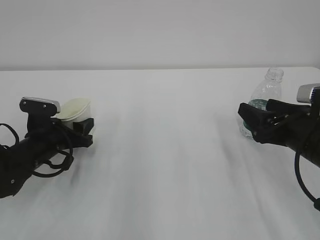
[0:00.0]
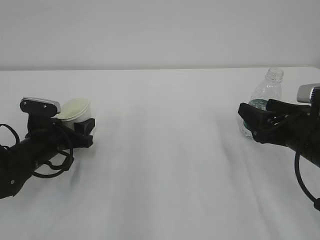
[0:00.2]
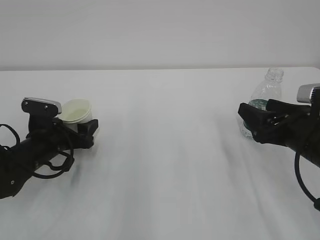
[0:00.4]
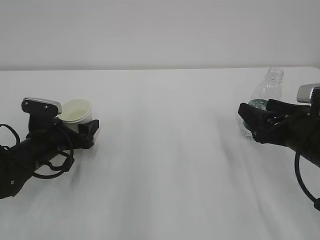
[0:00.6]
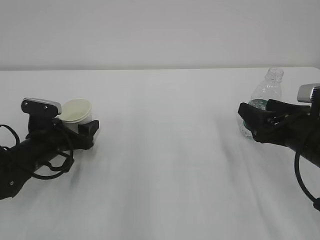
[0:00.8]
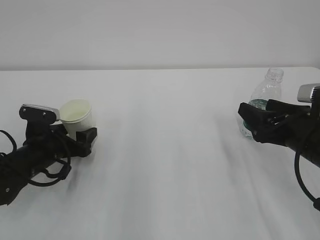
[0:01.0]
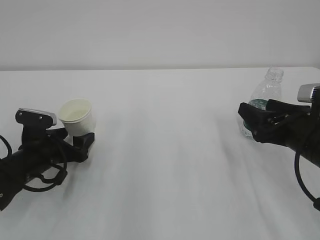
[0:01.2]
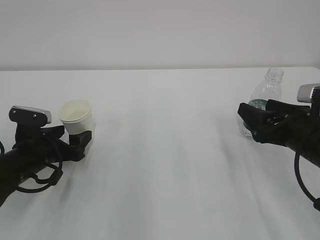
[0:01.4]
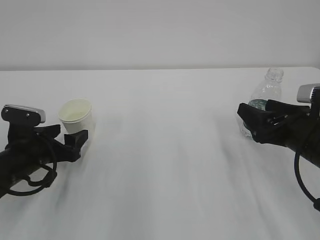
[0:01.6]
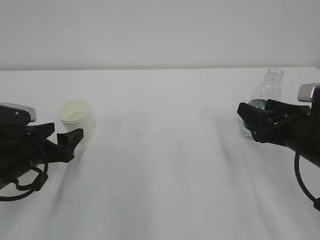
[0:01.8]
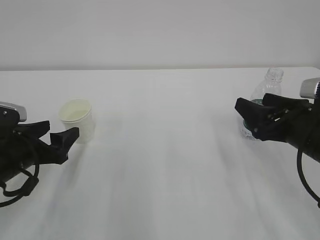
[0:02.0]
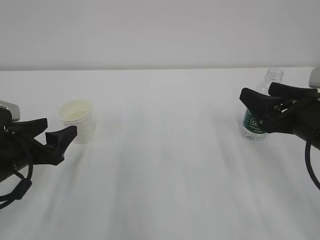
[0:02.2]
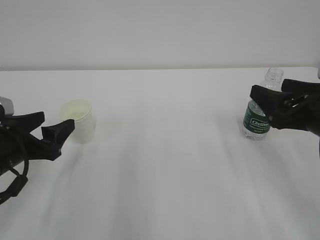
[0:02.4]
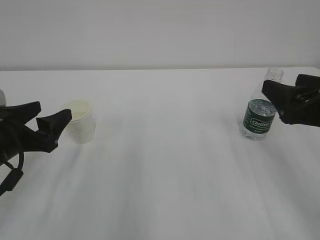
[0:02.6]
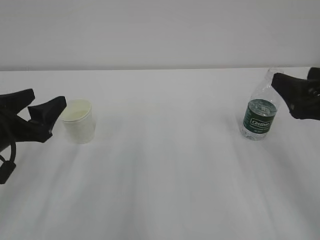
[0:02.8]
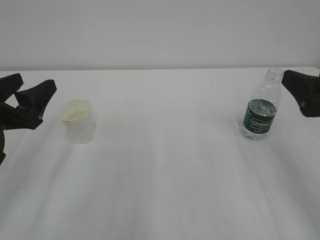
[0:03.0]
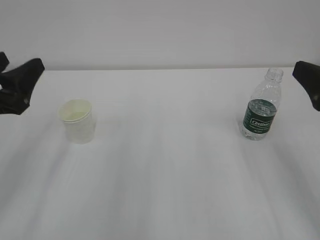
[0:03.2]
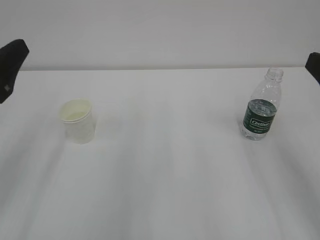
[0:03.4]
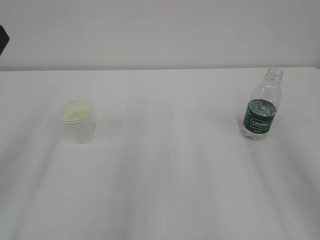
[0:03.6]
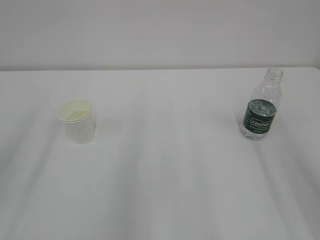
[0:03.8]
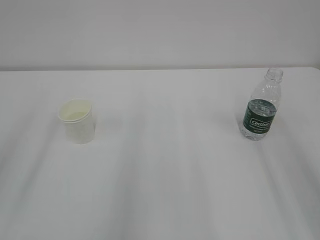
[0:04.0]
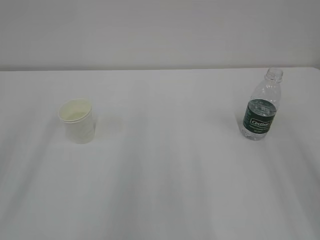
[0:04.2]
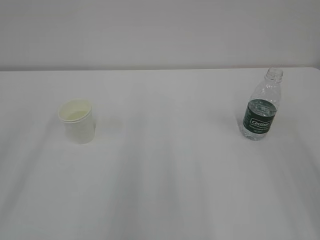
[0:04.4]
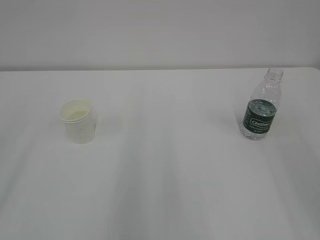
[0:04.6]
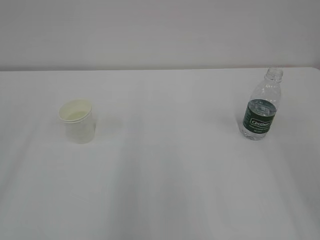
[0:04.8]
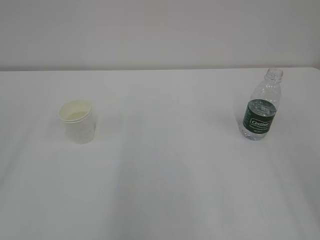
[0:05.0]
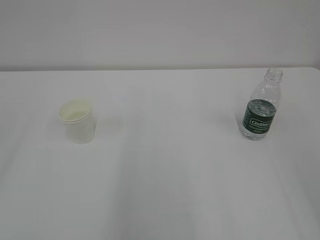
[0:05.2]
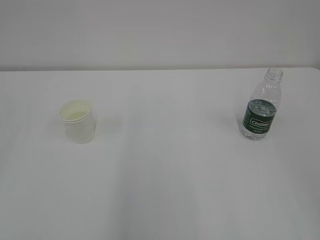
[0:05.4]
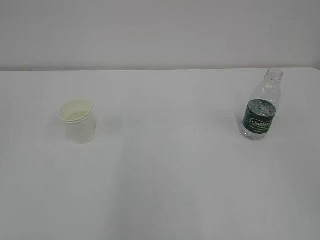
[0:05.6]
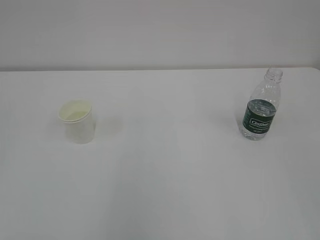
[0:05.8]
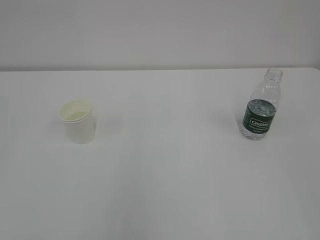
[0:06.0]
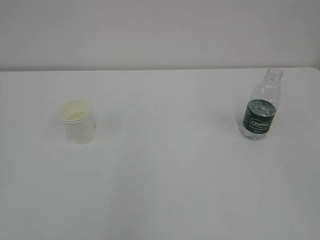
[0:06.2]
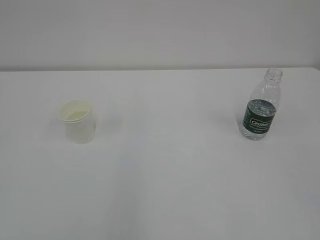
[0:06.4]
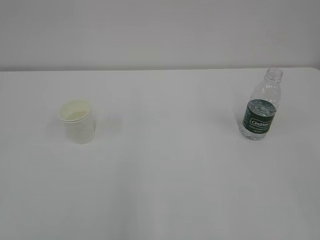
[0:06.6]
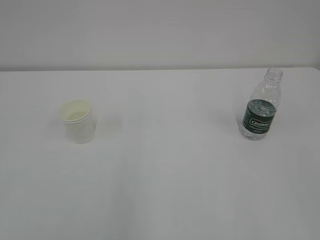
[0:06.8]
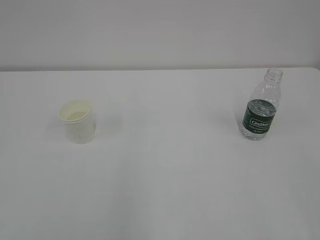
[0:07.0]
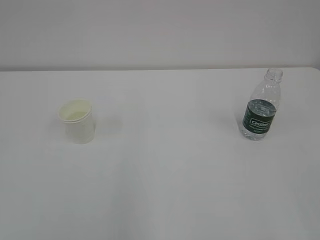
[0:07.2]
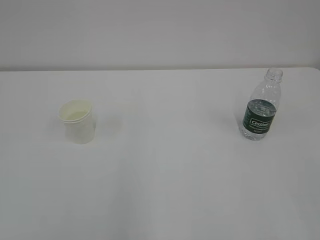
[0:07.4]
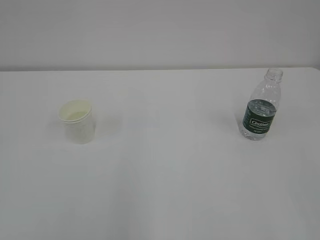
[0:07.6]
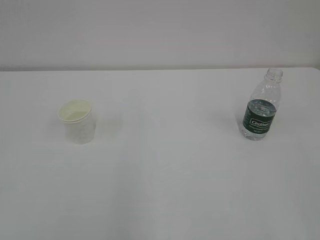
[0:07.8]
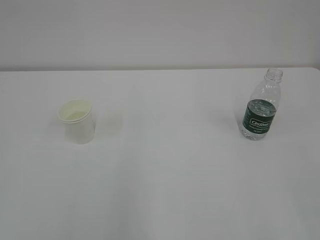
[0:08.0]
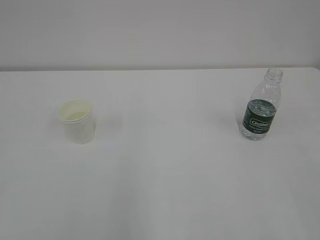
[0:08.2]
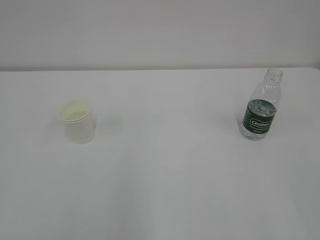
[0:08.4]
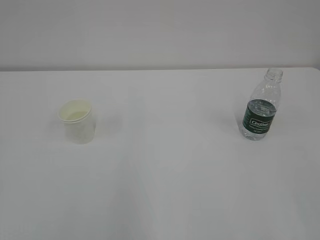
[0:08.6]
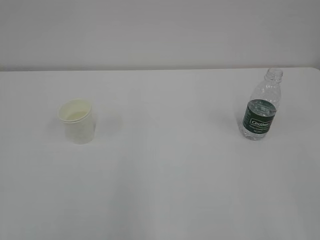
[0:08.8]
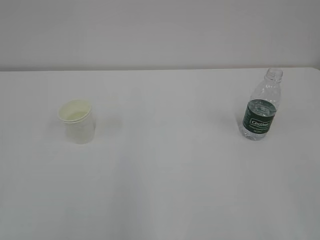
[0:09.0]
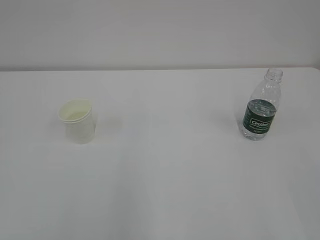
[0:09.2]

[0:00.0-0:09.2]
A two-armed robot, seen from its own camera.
0:00.0 to 0:01.6: The left gripper opens its fingers.
0:01.6 to 0:03.0: Both grippers travel together upward and backward, approximately 10 cm.
0:03.0 to 0:04.6: The left gripper is displaced upward and backward by some 20 cm. Meanwhile the right gripper shifts about 15 cm backward and upward.
0:07.6 to 0:09.2: Both grippers stay put.

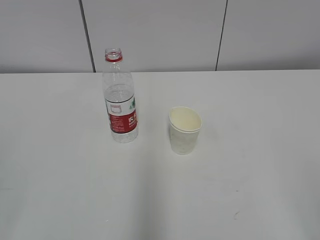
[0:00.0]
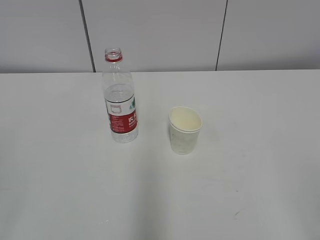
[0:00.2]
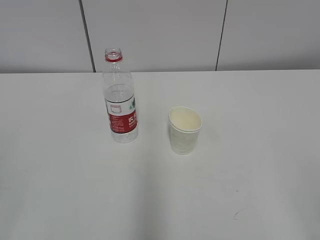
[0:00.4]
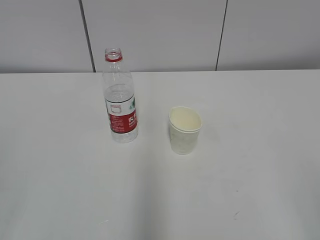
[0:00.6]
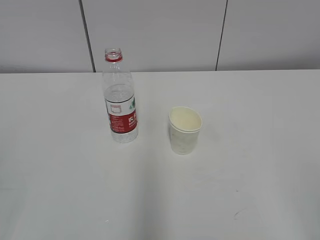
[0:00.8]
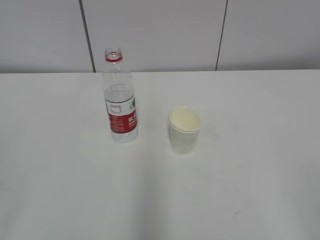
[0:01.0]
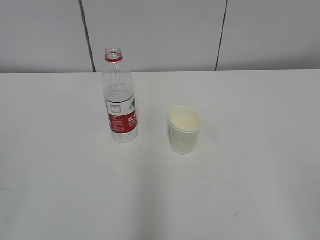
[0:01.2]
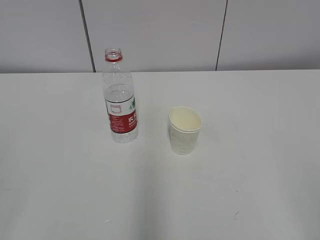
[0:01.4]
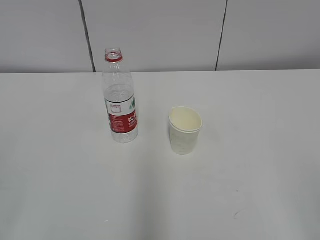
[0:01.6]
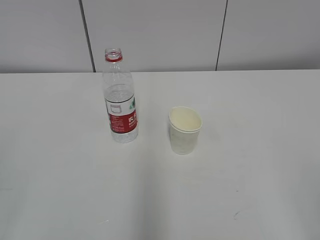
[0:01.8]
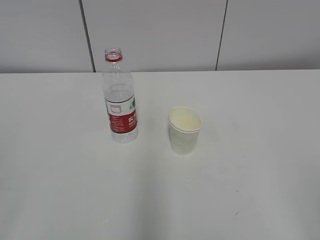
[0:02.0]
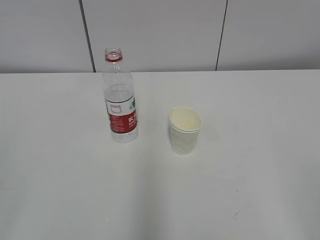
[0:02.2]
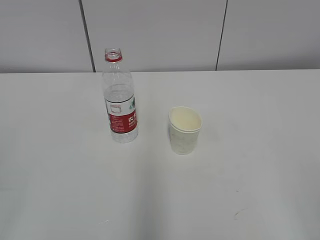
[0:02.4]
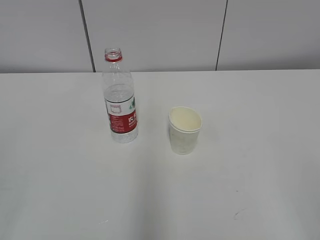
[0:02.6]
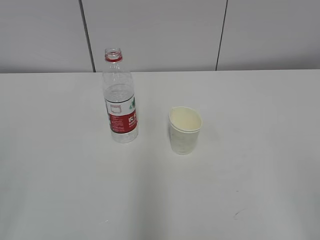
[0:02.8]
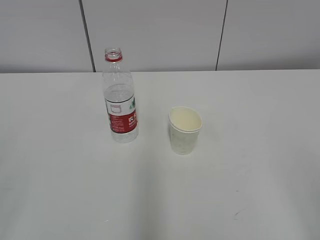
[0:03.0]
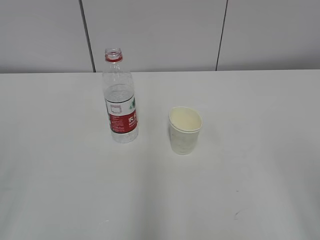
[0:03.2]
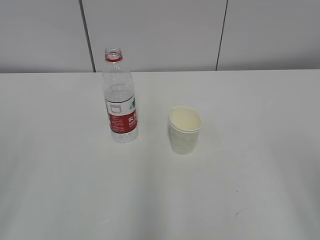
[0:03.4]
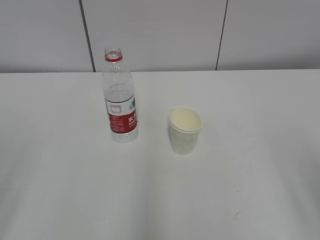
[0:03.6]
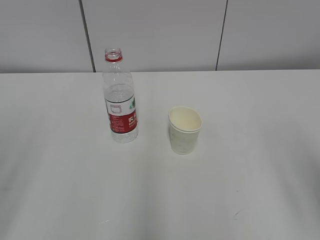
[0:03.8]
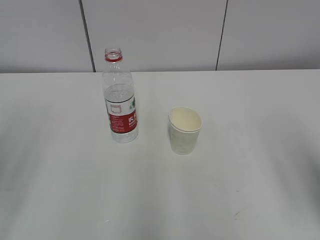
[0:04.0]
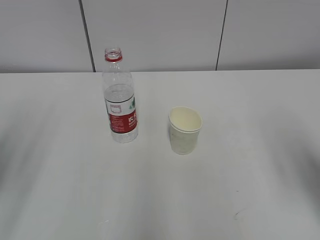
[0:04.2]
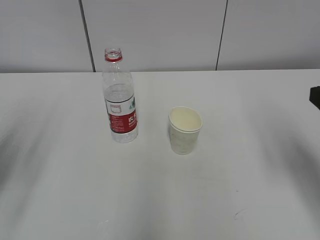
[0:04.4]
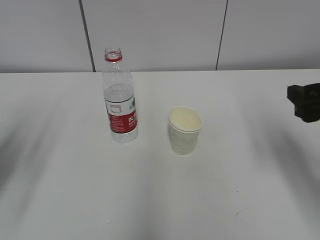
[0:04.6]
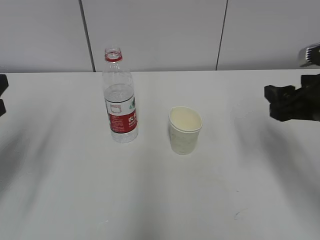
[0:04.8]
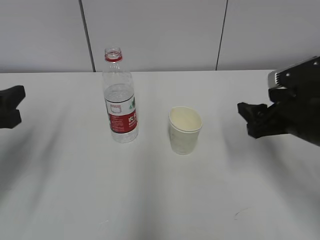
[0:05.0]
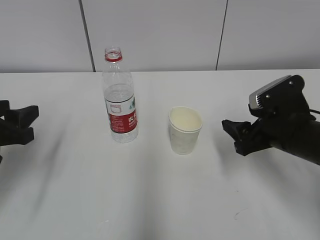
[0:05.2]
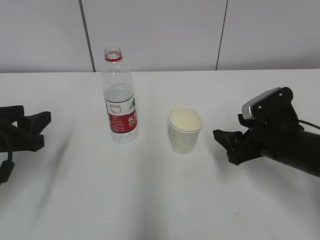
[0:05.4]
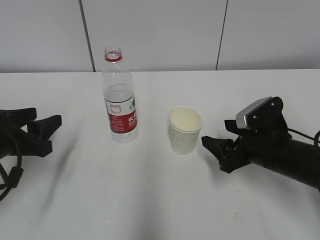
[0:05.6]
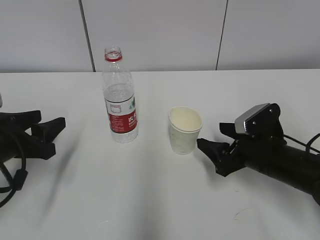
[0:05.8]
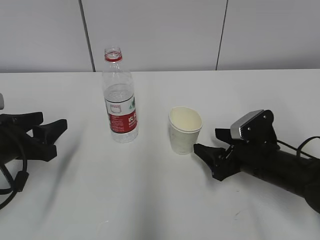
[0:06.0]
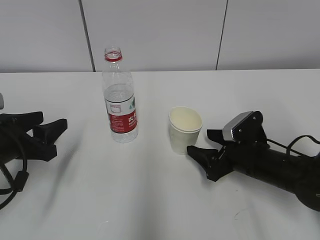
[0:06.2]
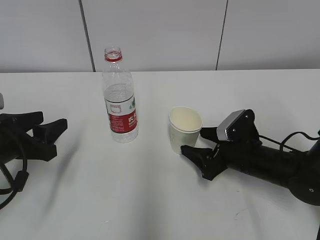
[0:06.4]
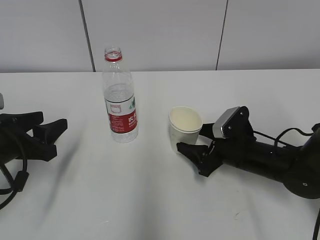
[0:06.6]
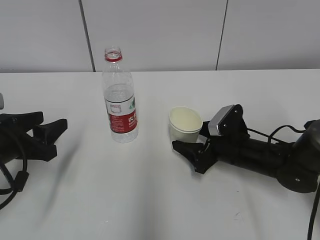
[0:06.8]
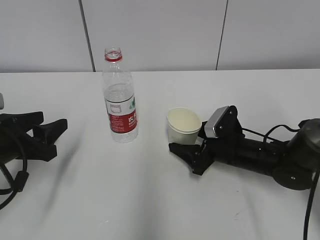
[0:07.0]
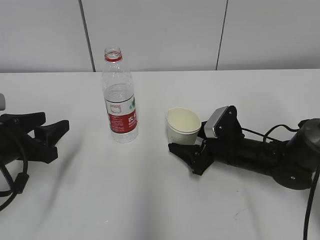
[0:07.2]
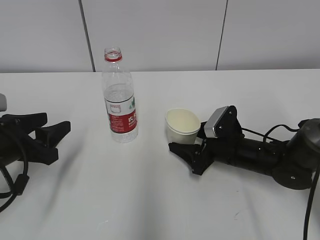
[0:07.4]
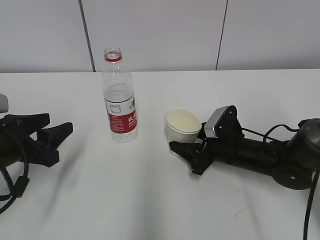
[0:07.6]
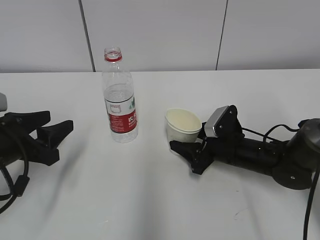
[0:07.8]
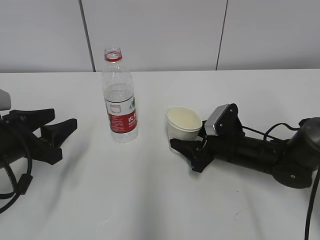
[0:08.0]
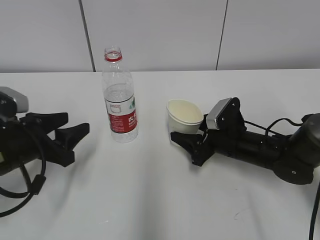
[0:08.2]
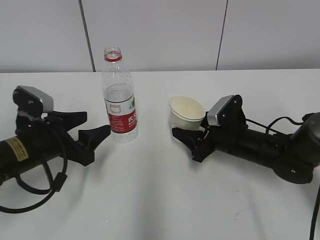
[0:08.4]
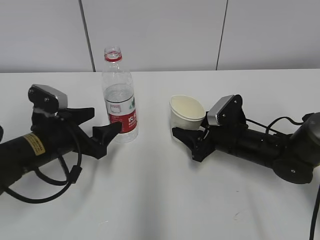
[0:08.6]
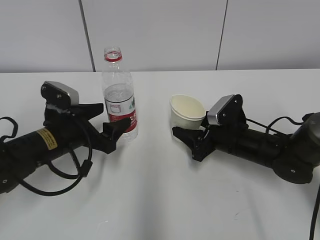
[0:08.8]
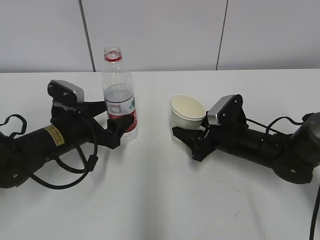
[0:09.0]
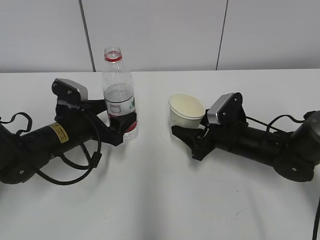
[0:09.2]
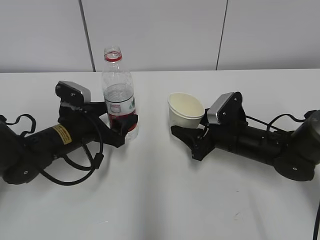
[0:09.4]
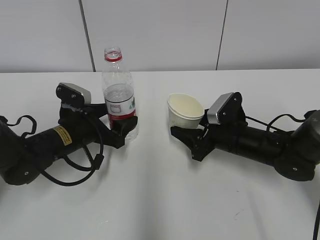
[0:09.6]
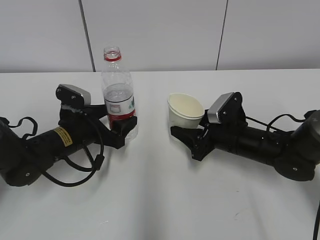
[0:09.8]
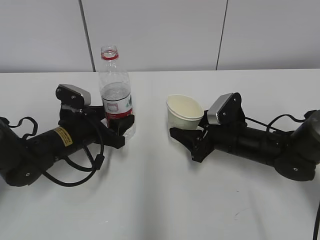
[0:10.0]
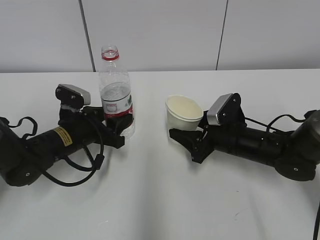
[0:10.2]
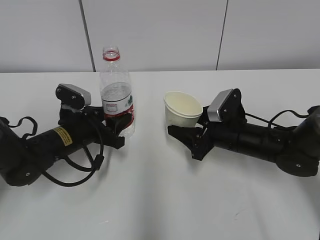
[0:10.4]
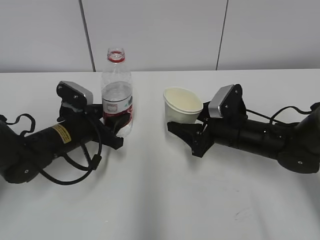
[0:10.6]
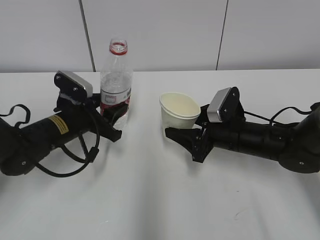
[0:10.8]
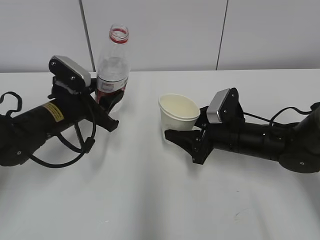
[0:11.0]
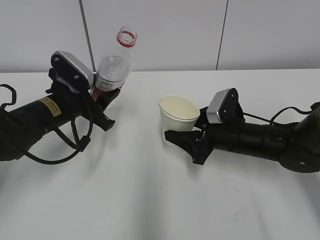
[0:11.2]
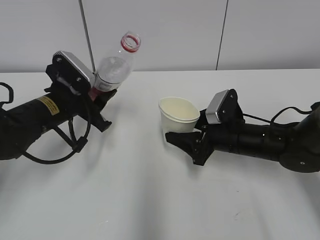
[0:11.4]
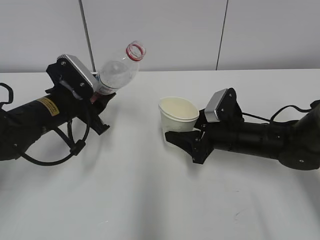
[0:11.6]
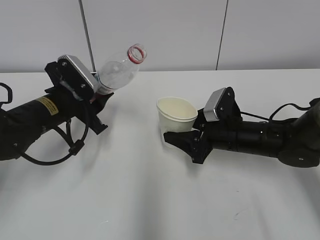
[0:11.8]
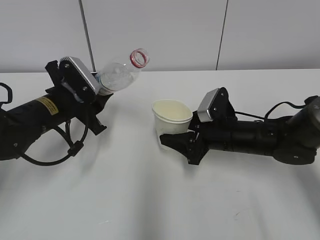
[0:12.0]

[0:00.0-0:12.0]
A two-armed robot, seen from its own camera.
Step, 0:00.0 to 0:06.2: Grab the paper cup with the right hand.
Step, 0:06.4 to 0:08.4: Grab the water bottle with the left hand.
Step, 0:08.6 to 0:11.8: Lift the paper cup with the right hand.
0:03.0 to 0:04.4: The two grippers go about 20 cm forward.
0:04.4 to 0:06.0: The right gripper moves downward, forward and to the left, roughly 20 cm. The left gripper heads downward and forward, covering approximately 15 cm.
0:06.0 to 0:07.6: The right gripper heads forward, covering roughly 5 cm, and closes up.
0:07.6 to 0:09.0: The left gripper goes approximately 10 cm forward and to the right, and opens up.
0:09.0 to 0:10.4: The left gripper closes.
0:10.4 to 0:12.0: The left gripper goes roughly 5 cm upward.

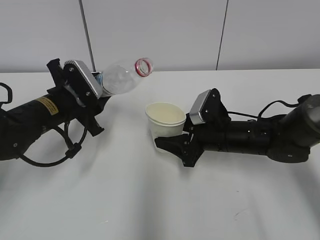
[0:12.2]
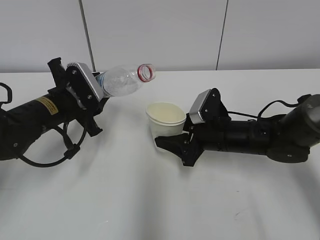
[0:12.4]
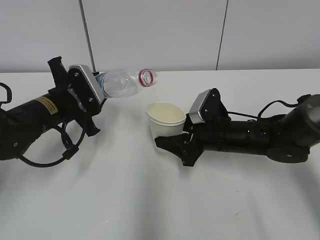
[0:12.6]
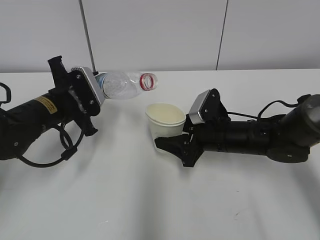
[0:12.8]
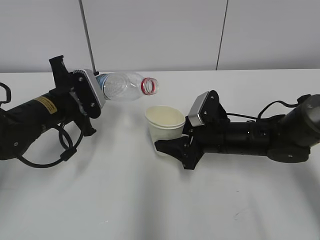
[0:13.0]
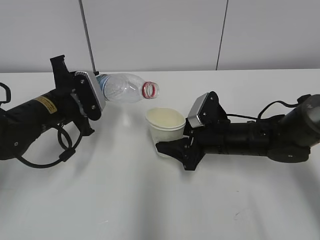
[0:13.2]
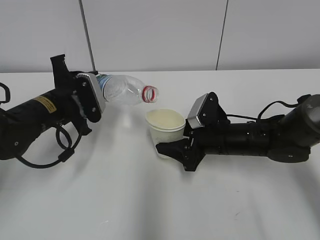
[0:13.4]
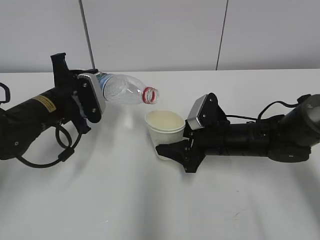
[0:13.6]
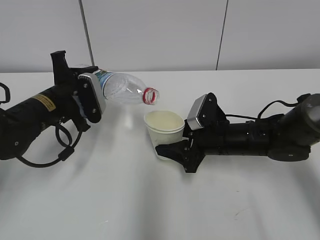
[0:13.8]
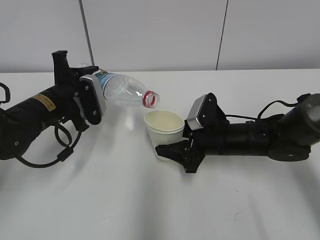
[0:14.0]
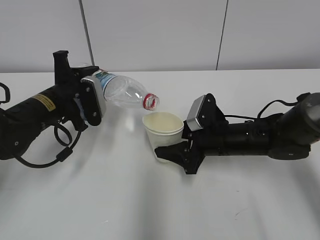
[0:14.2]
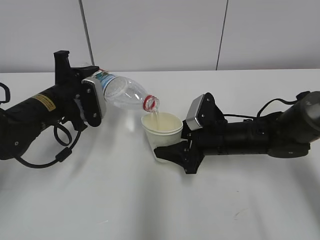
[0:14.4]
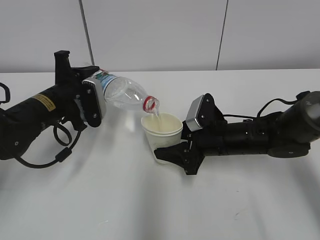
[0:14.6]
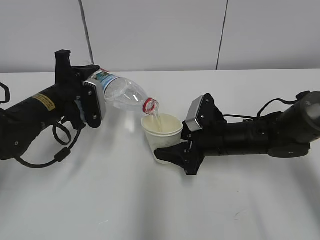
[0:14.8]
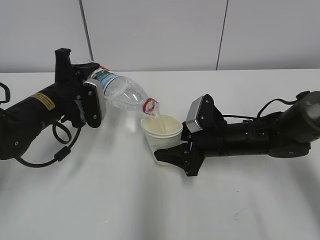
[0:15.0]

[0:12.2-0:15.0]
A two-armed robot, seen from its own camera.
Step, 0:12.2 to 0:14.2: Fill water with the right hand.
Step, 0:12.2 to 0:14.2: Pour water with the left hand.
0:13.6 to 0:15.0: The grippers move only a little.
